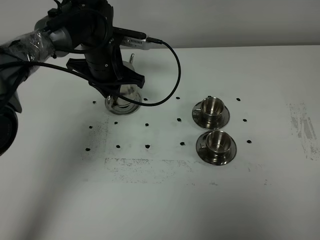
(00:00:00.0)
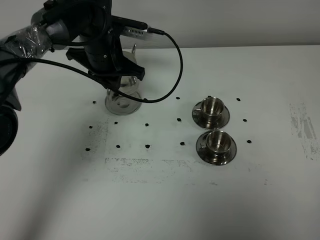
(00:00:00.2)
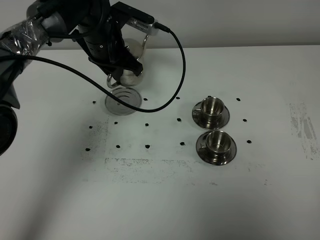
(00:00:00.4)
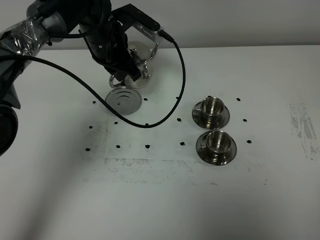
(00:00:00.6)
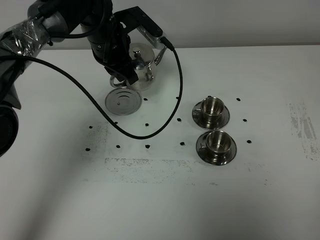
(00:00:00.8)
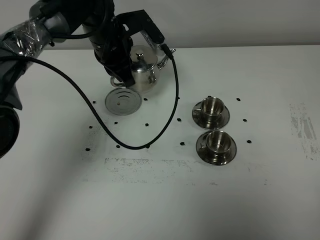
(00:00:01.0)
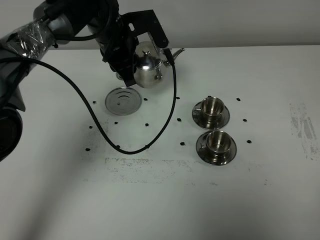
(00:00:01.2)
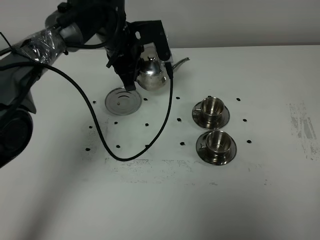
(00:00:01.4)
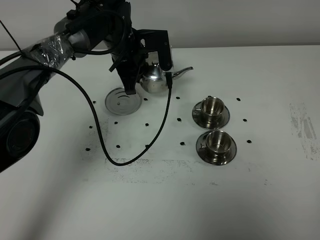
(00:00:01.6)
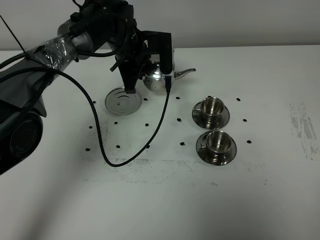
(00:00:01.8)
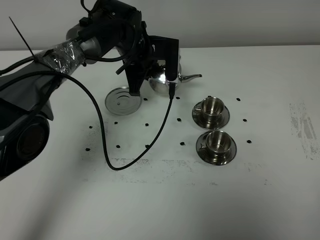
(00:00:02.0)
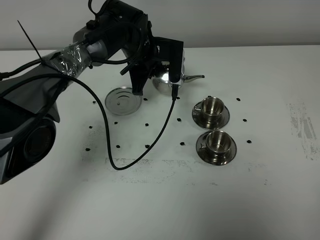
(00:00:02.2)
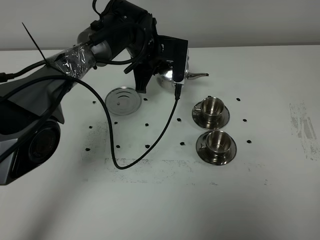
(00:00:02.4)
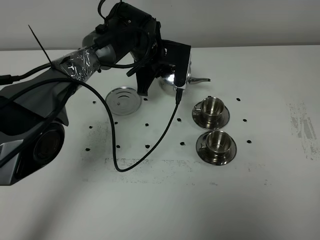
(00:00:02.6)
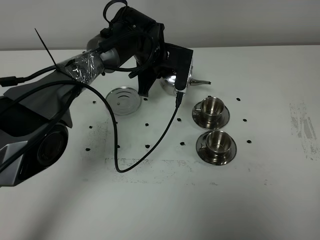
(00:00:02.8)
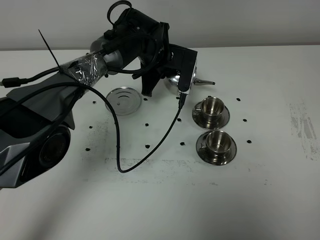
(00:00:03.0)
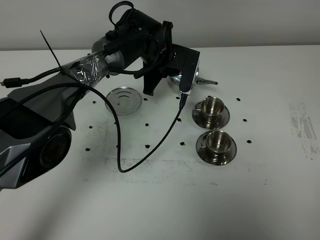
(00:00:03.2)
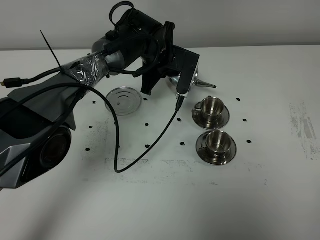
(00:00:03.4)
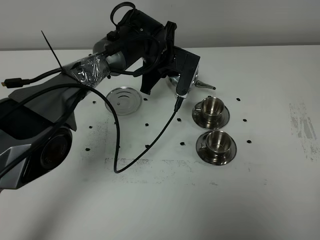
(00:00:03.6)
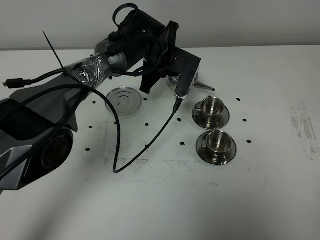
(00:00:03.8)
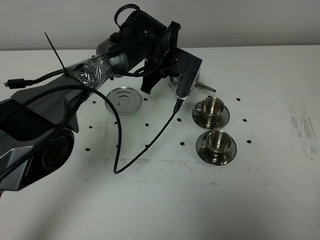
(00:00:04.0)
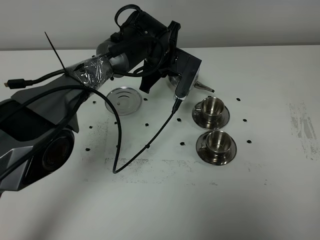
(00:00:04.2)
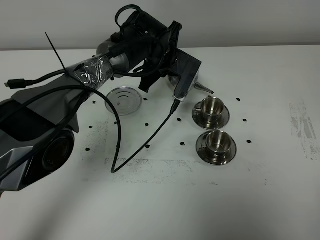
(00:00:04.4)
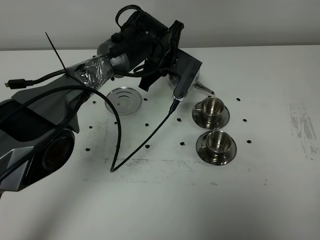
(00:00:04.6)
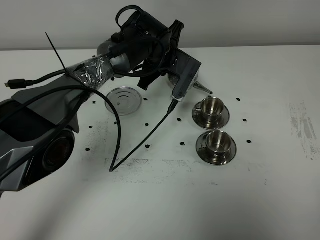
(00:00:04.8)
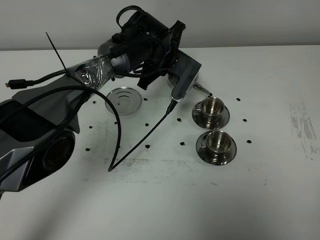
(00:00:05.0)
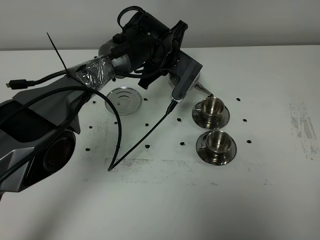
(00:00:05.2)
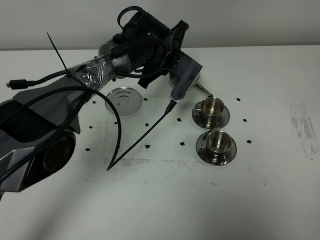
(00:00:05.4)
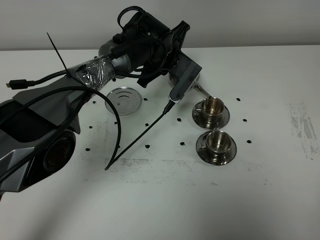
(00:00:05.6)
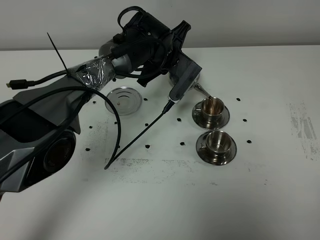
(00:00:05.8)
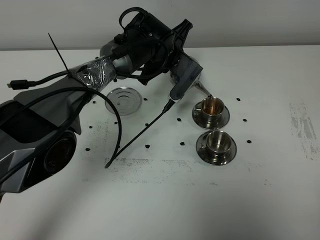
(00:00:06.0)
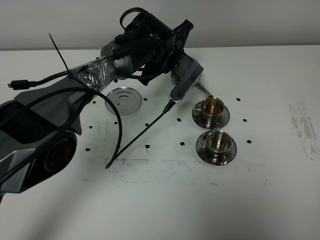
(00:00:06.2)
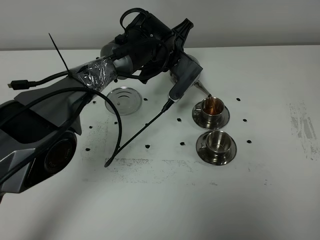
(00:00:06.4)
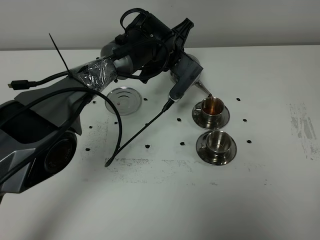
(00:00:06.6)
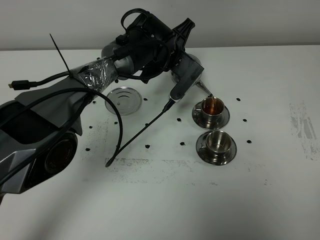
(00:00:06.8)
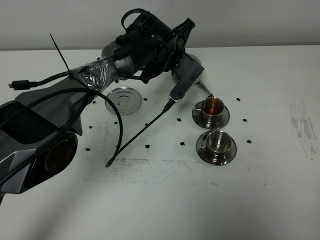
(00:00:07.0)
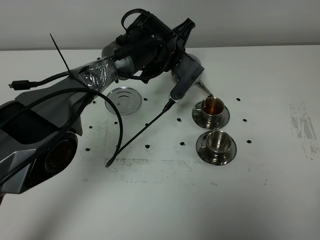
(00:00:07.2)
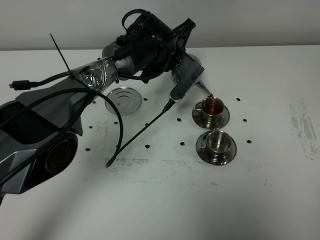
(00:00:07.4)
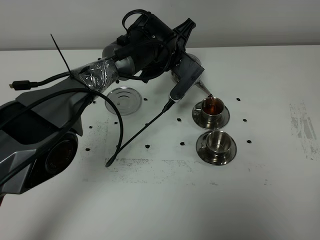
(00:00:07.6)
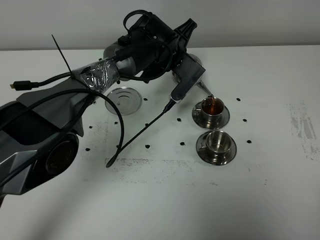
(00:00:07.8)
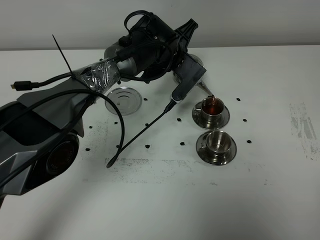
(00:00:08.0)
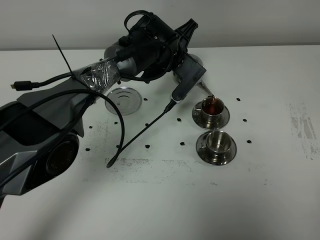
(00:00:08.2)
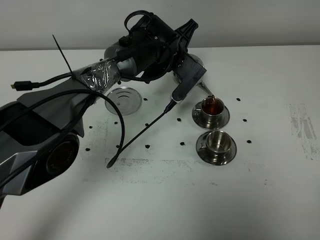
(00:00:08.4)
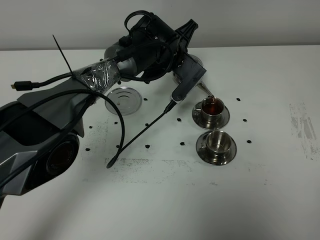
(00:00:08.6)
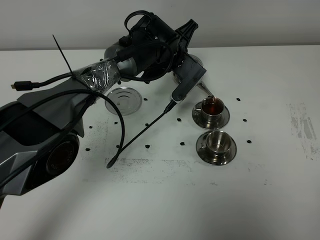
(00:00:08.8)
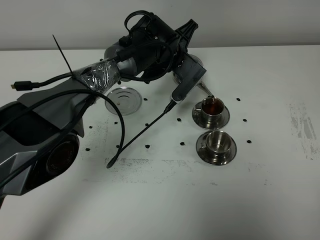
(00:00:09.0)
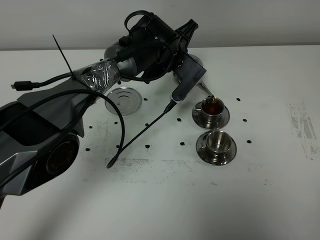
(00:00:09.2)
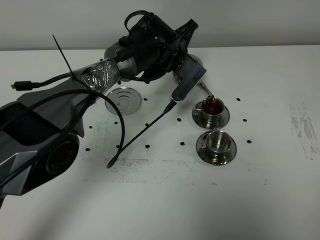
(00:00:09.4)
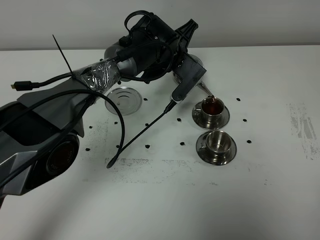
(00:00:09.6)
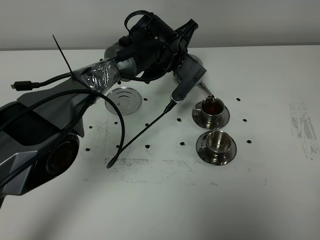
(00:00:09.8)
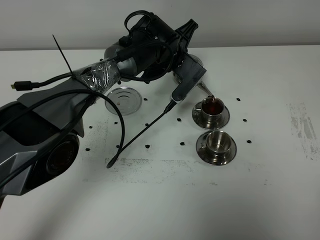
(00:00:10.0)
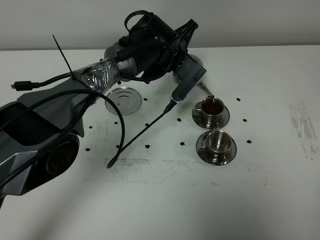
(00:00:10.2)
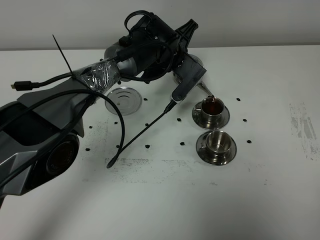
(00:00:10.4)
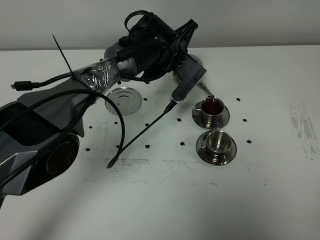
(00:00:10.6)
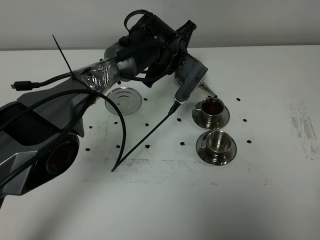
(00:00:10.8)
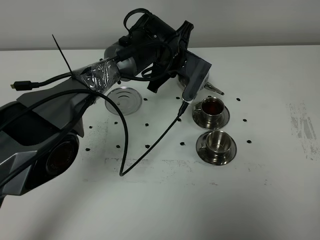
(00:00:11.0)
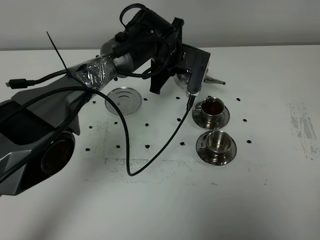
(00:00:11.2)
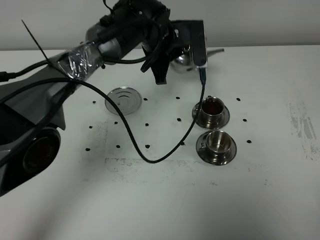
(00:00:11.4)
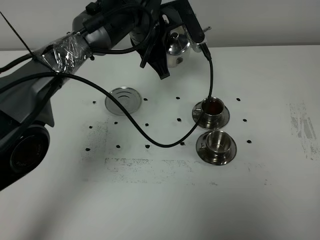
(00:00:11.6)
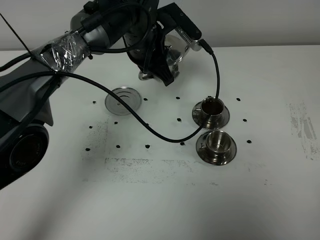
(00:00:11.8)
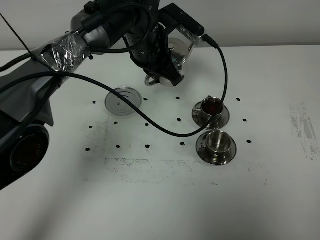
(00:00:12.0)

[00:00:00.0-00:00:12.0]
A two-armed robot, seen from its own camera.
Task of the whole recording: grasp the stainless steel teapot and pour the tea into the two stainless steel teacups one by one, put the stainless steel teapot back in its original place.
00:00:01.6 to 00:00:03.0: The left gripper travels to the right by roughly 5 cm.
00:00:03.0 to 00:00:04.4: The grippers move only a little.
00:00:04.4 to 00:00:06.0: There are only small adjustments of the grippers.
00:00:06.0 to 00:00:10.4: Both grippers stay put.
00:00:10.4 to 00:00:12.0: The left gripper heads upward, covering some 5 cm.

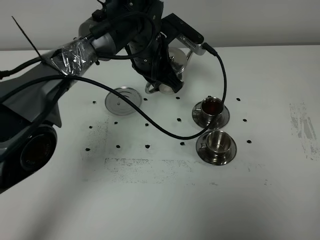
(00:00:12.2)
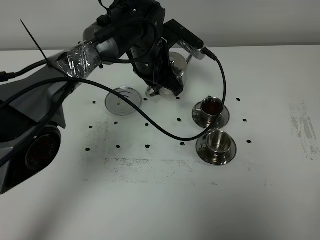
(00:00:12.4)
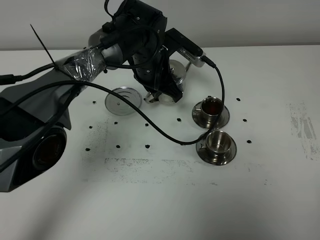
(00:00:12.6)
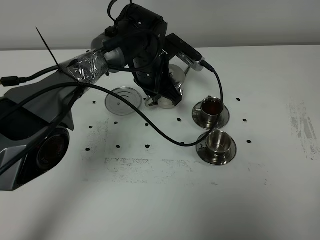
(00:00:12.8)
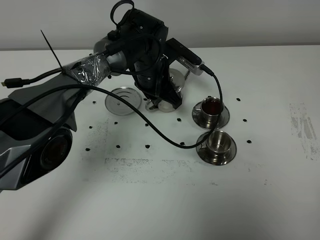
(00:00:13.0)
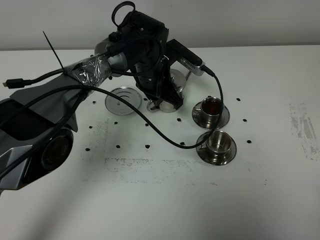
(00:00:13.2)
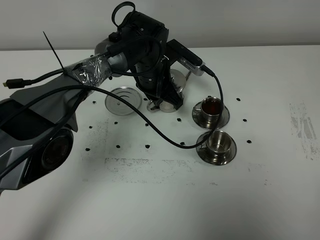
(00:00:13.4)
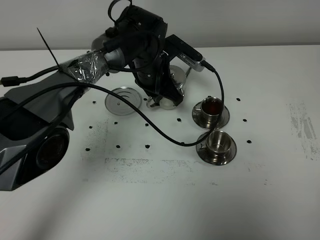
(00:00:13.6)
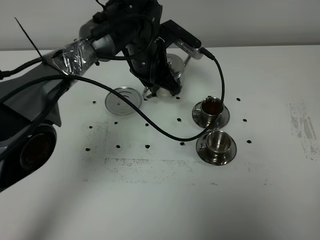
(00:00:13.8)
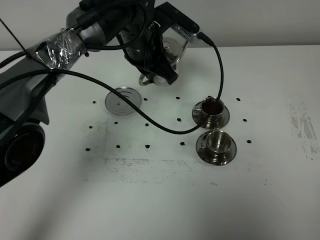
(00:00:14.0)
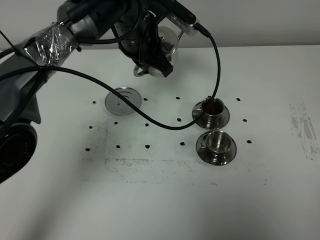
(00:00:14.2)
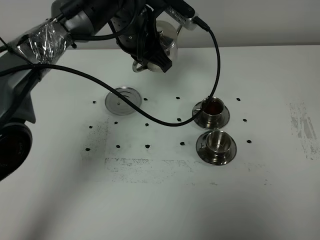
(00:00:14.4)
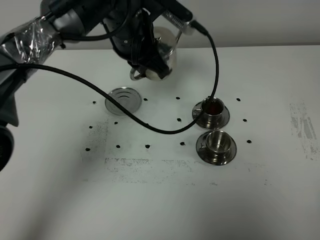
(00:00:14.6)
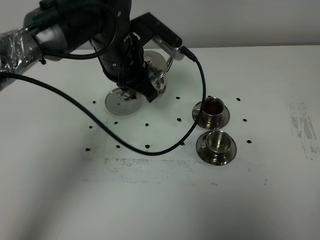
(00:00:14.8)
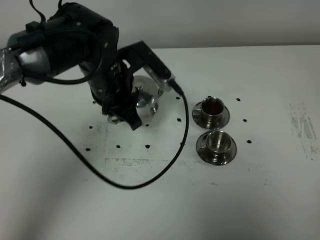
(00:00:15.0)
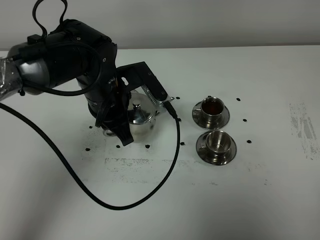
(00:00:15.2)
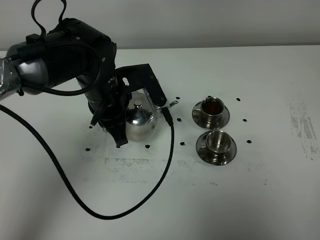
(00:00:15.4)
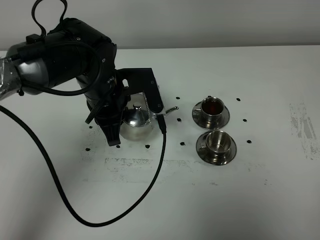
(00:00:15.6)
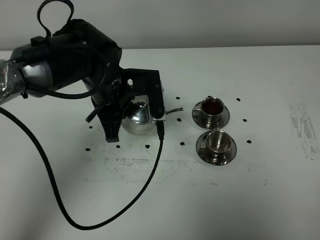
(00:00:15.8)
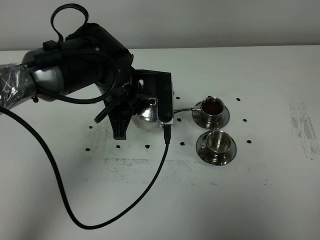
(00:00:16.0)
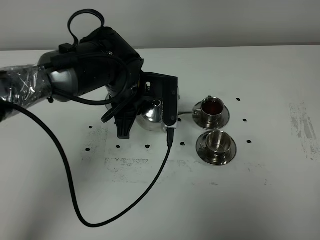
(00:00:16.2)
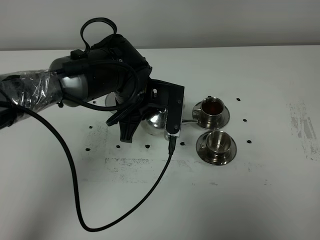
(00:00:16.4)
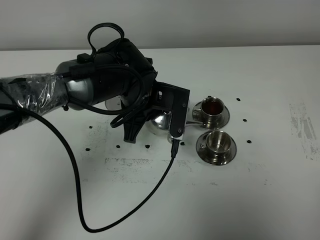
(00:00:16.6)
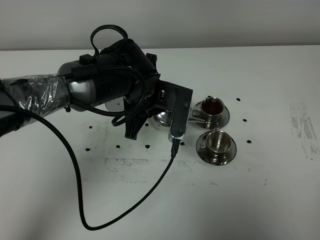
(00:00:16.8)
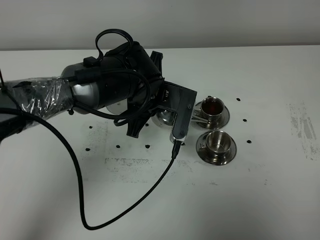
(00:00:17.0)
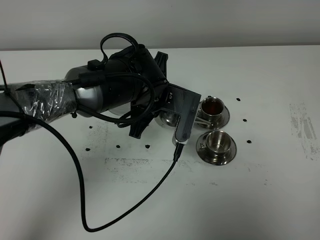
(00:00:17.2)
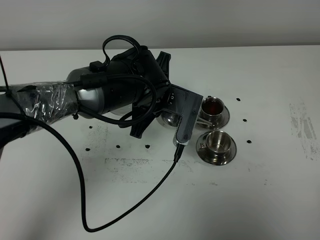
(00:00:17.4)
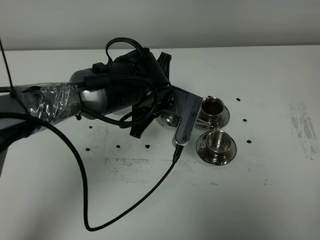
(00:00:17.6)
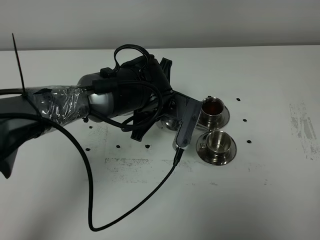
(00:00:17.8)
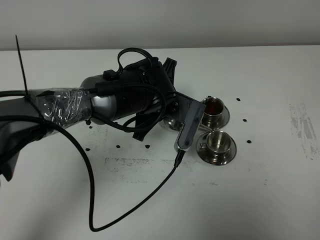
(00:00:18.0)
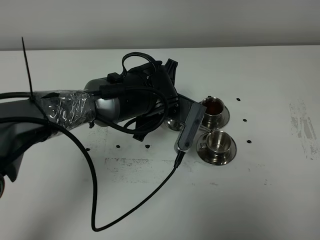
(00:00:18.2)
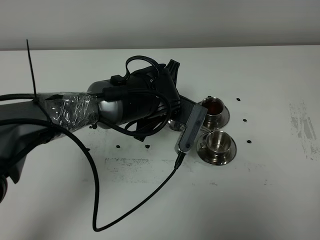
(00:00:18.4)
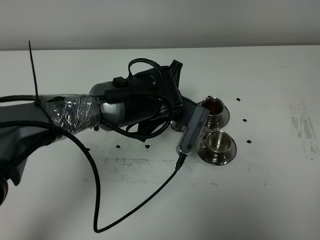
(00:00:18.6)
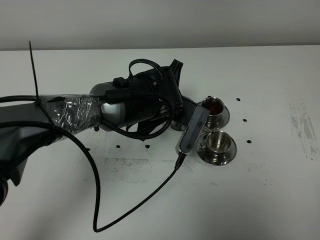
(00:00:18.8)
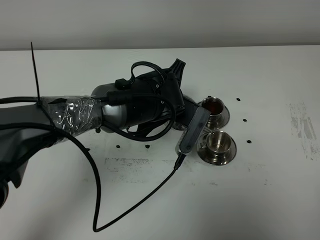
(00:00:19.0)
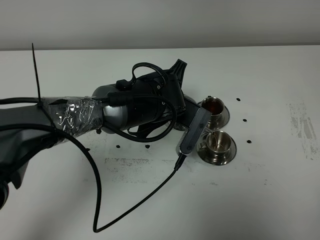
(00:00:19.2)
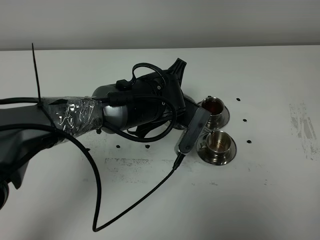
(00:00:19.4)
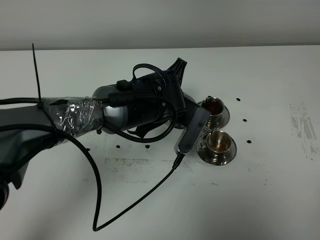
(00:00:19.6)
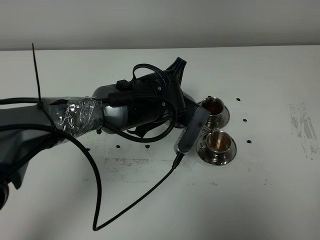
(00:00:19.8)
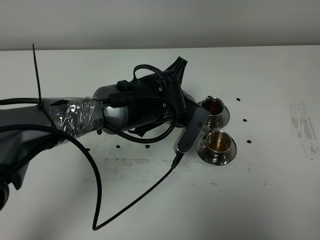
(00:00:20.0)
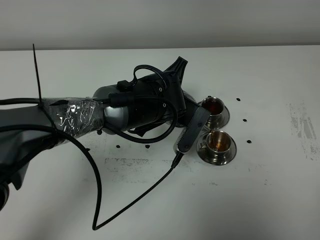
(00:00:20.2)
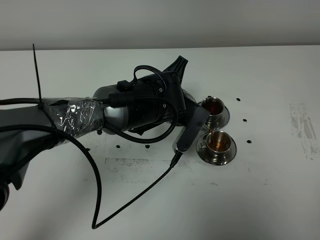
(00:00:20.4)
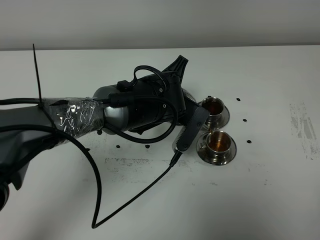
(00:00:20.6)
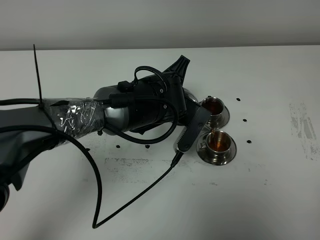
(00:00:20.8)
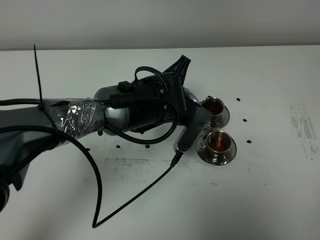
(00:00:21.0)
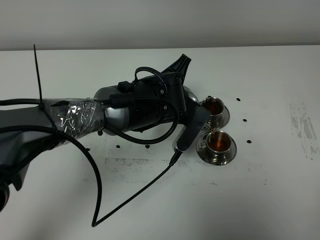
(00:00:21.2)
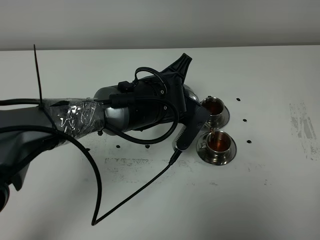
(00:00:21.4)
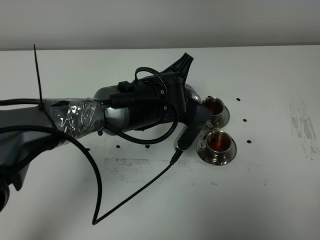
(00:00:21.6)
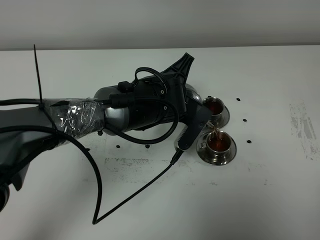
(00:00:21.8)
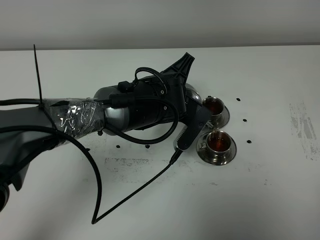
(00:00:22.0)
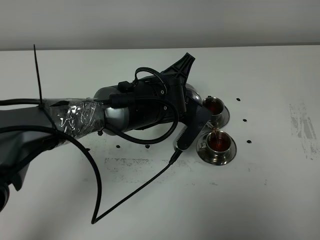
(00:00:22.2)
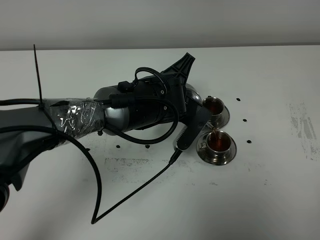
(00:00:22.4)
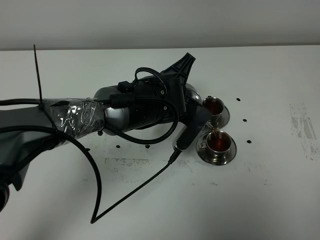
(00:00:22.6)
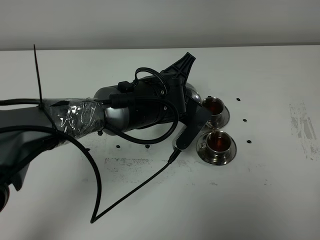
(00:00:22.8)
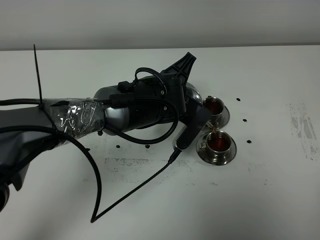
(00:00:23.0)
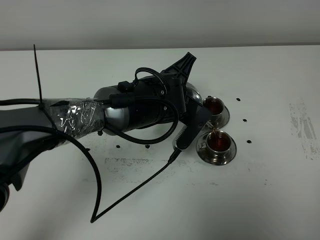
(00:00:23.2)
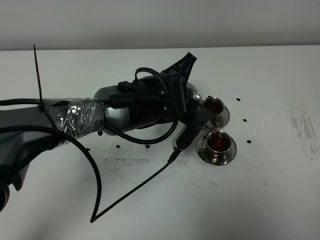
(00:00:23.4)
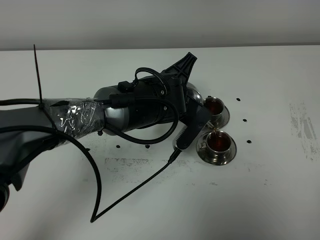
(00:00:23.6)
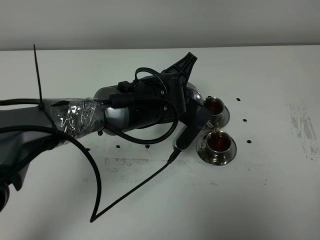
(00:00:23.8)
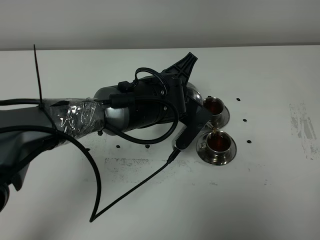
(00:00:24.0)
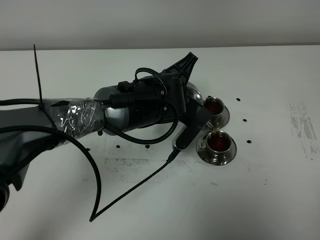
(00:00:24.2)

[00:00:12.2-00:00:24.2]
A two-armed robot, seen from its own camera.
Task of the whole recording: grasp the stainless steel teapot and pour the tea into the two stainless steel teacups one by one, put the stainless steel teapot back in its original place.
00:00:12.2 to 00:00:13.8: The grippers make only small movements.
00:00:13.8 to 00:00:15.2: The left gripper moves backward and to the left, about 10 cm.
00:00:15.2 to 00:00:16.6: The left gripper moves to the right, about 5 cm.
00:00:16.6 to 00:00:18.2: The grippers stay close to where they were, moving slightly.
00:00:18.2 to 00:00:21.2: The grippers make only small movements.
00:00:21.2 to 00:00:22.6: Both grippers stay about where they are.
00:00:22.6 to 00:00:24.2: Neither gripper changes place.
